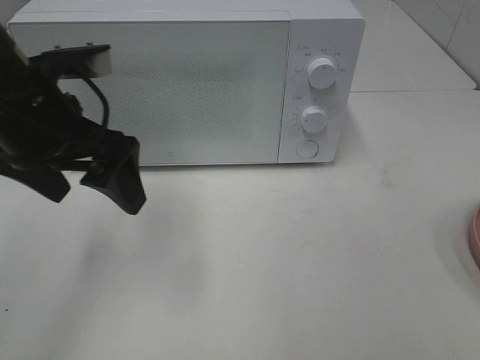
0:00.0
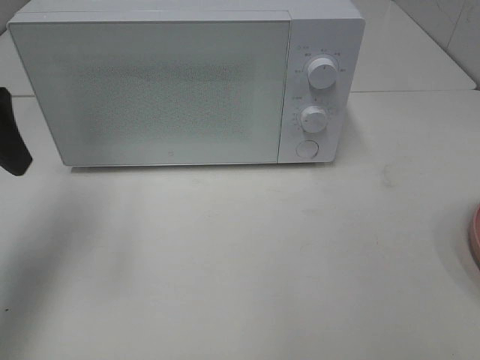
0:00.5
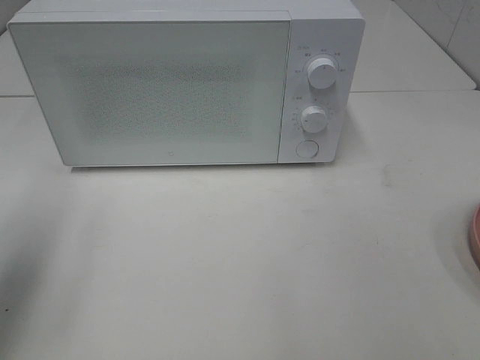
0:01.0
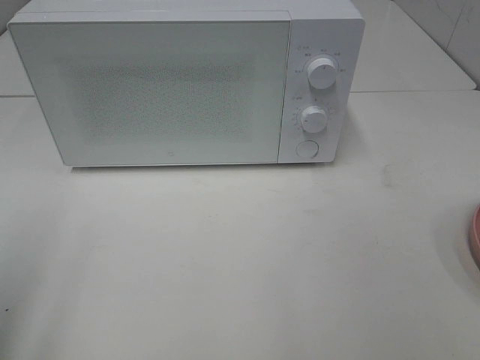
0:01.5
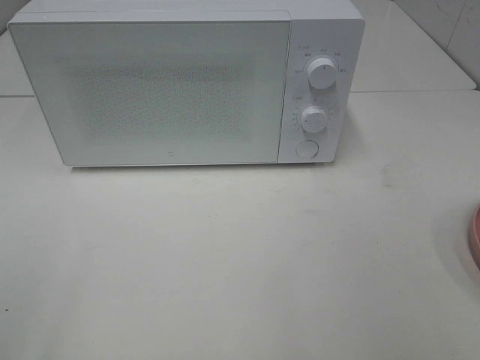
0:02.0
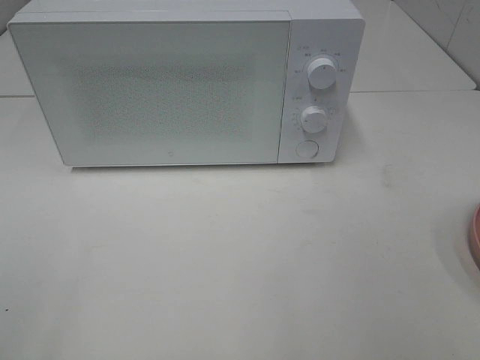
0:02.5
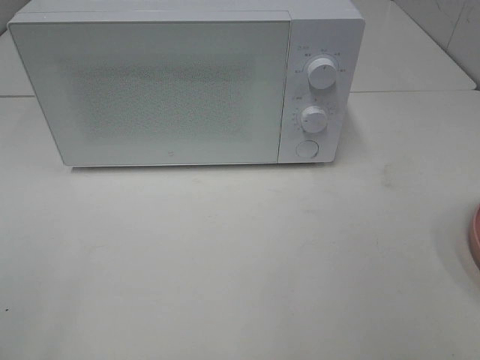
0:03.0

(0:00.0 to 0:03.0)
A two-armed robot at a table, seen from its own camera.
Task of the whole recording: Heat the burger.
0:00.0 - 0:01.5: The left gripper heads backward and to the left, covering roughly 20 cm.
